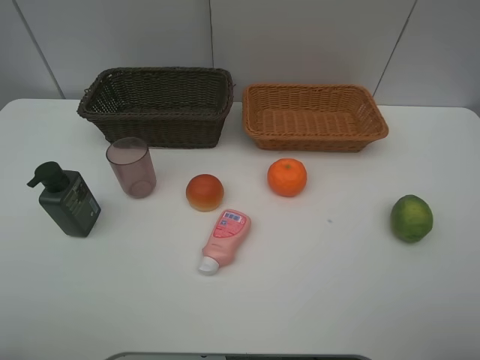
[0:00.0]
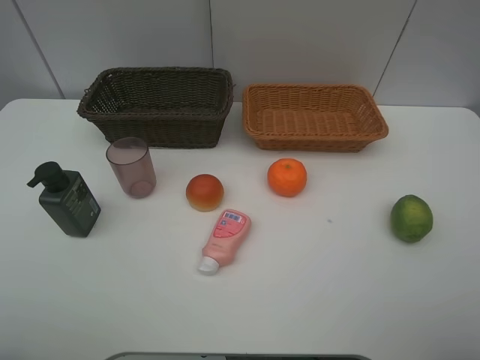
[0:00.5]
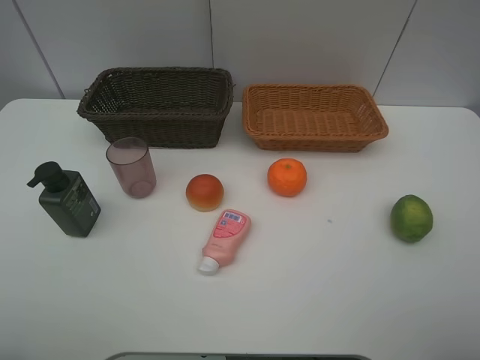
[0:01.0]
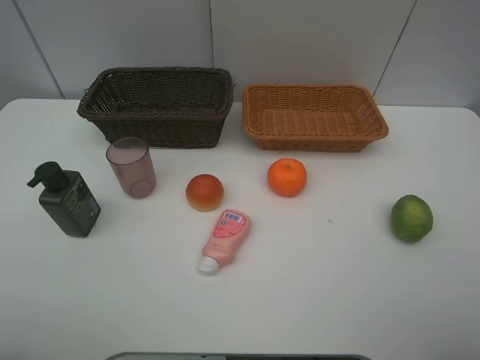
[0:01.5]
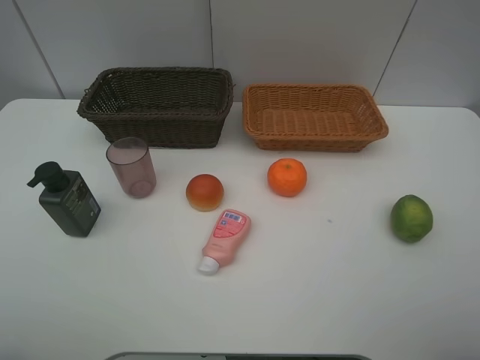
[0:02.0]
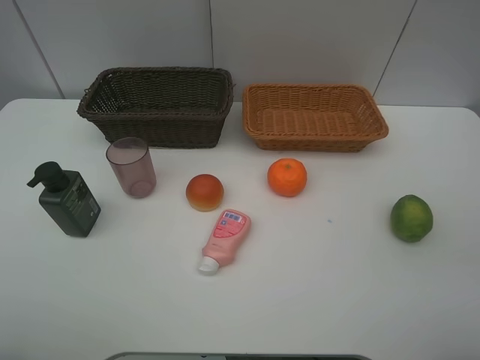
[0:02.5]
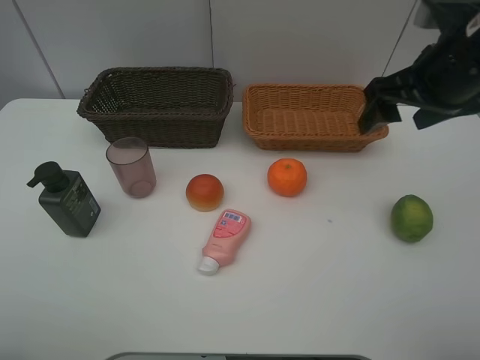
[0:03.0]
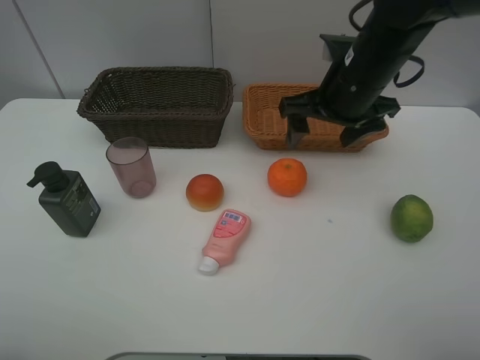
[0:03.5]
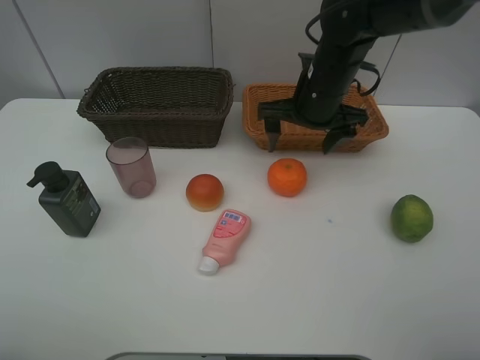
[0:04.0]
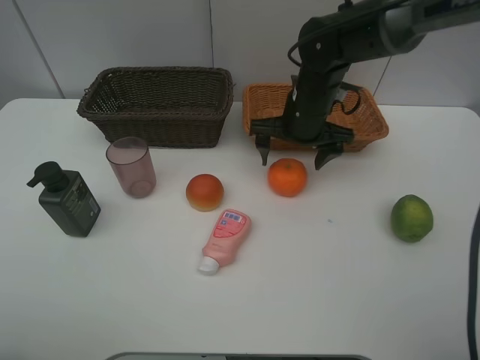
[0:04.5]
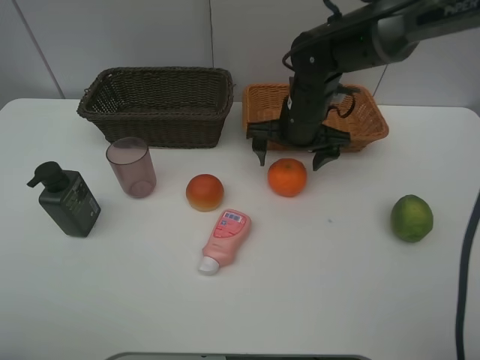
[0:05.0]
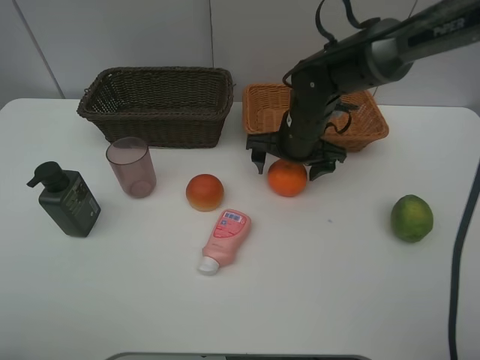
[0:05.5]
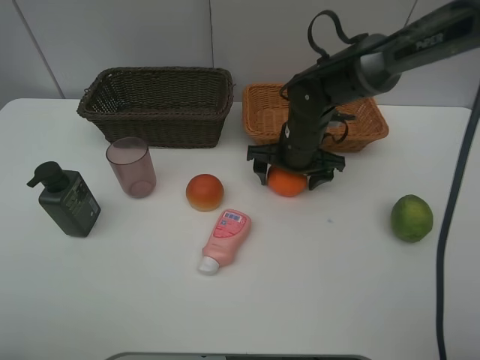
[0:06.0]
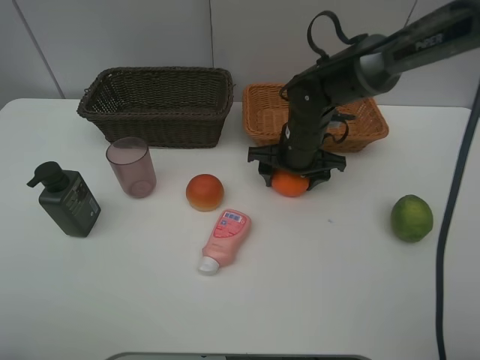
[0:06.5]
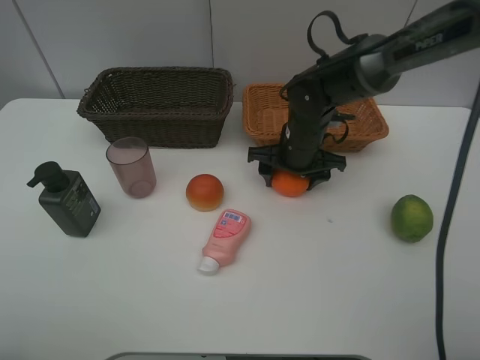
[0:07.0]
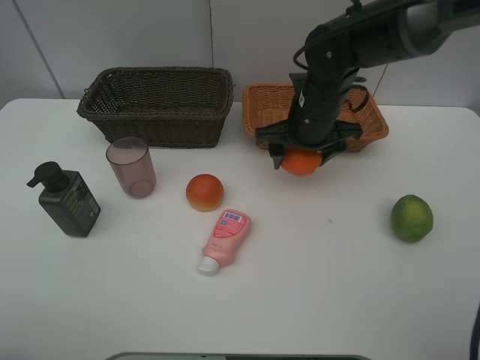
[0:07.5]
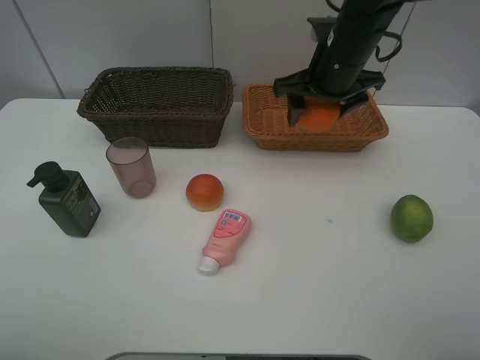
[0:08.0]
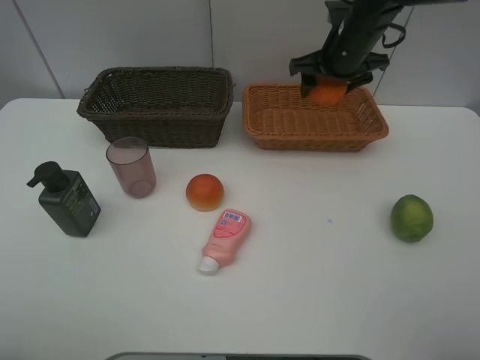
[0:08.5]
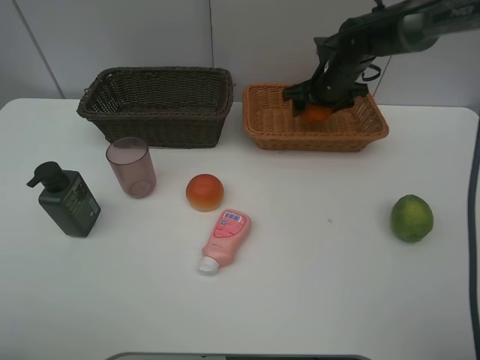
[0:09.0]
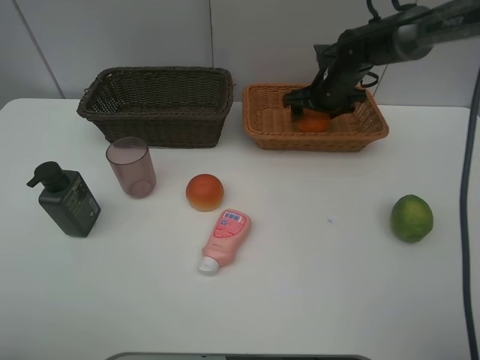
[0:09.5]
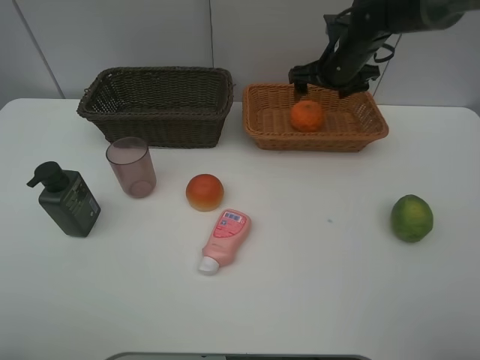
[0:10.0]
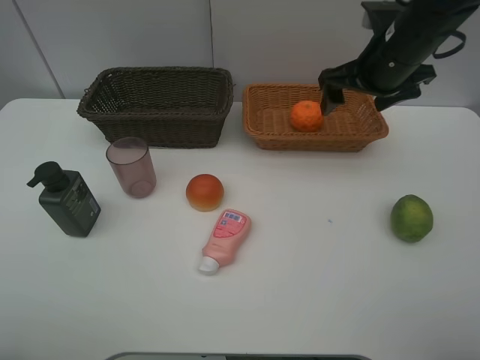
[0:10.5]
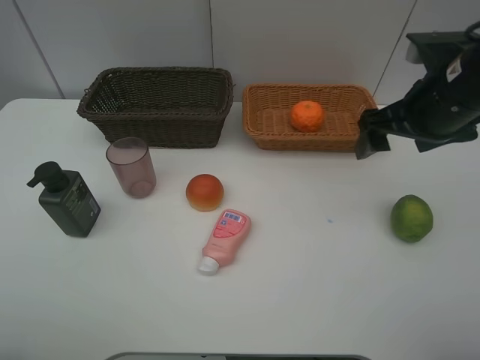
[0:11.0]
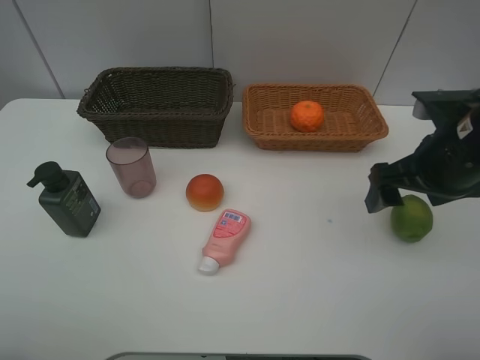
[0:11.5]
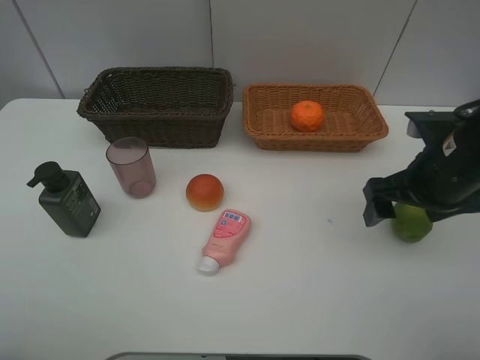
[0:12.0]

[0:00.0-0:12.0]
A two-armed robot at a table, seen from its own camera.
Task of the whole recording: place multiple objects separately in different baskets.
0:02.0 to 0:04.0: The right gripper travels forward and to the left by some 40 cm.
0:04.0 to 0:06.0: The right gripper goes about 10 cm downward.
0:06.0 to 0:08.0: The right gripper heads upward, covering about 15 cm.
0:08.0 to 0:10.0: The right gripper moves forward, about 10 cm, and opens its fingers.
0:10.0 to 0:12.0: The right gripper goes some 25 cm backward.

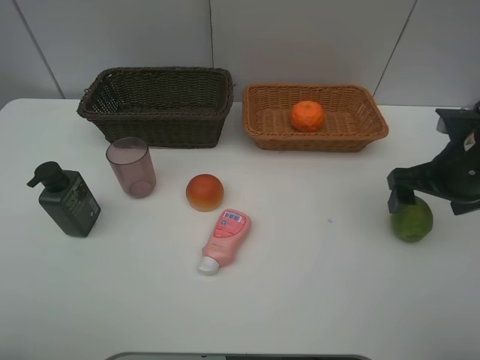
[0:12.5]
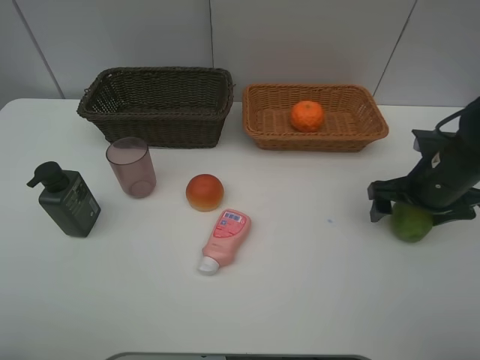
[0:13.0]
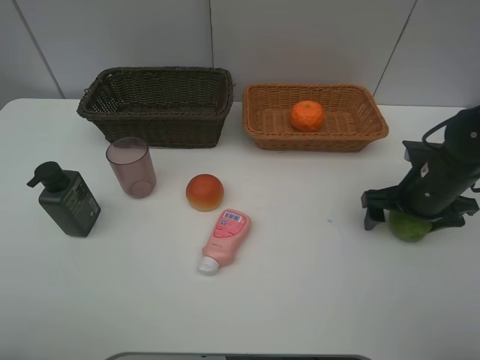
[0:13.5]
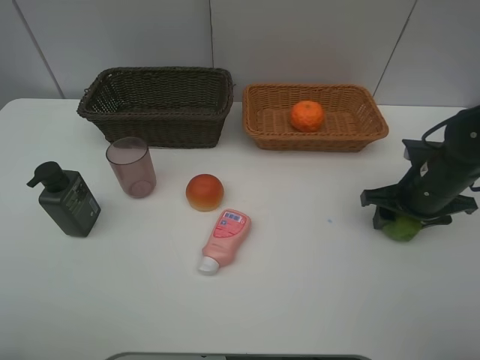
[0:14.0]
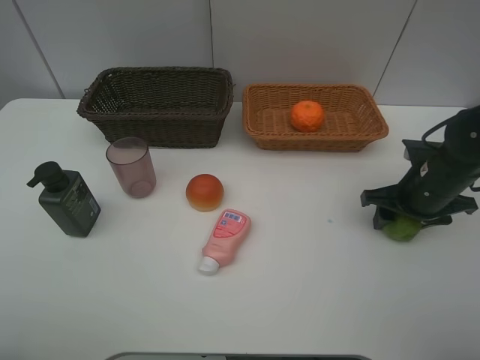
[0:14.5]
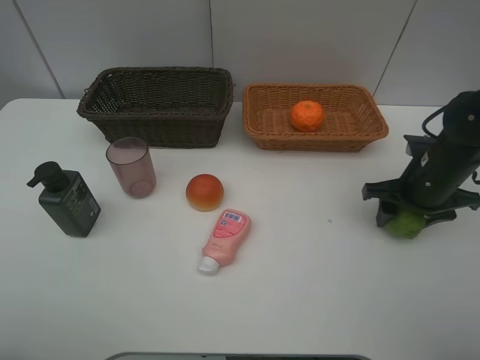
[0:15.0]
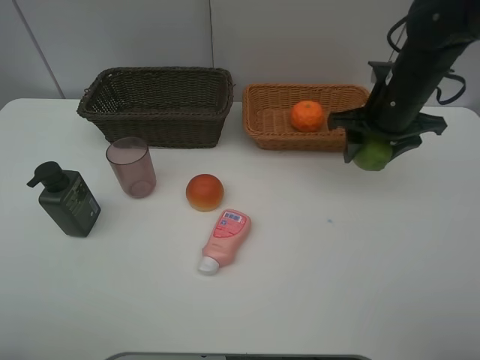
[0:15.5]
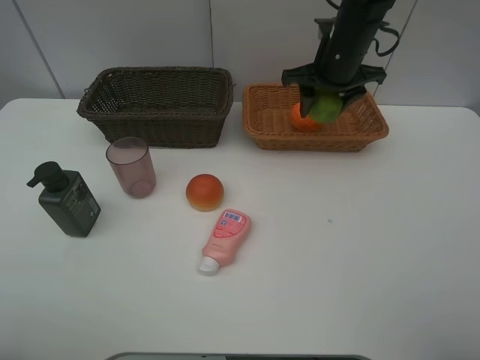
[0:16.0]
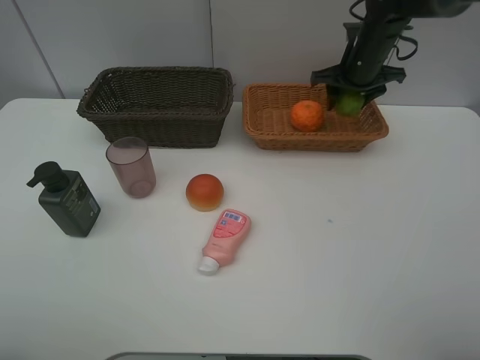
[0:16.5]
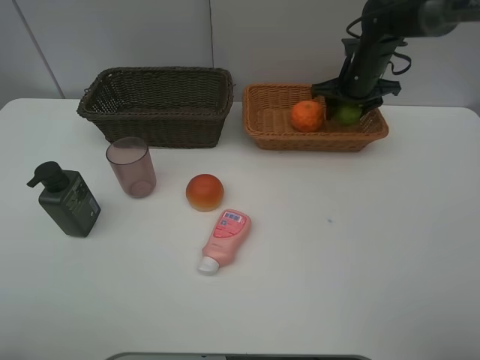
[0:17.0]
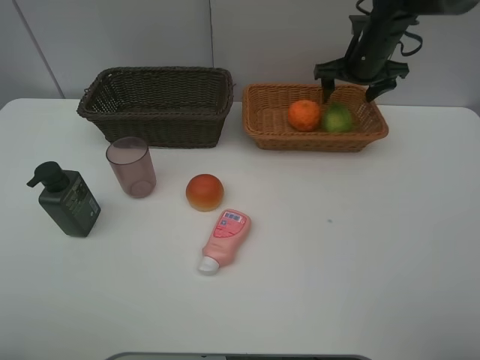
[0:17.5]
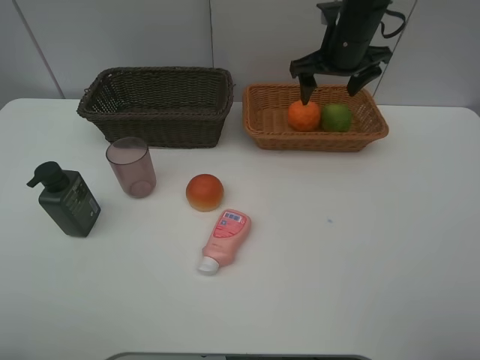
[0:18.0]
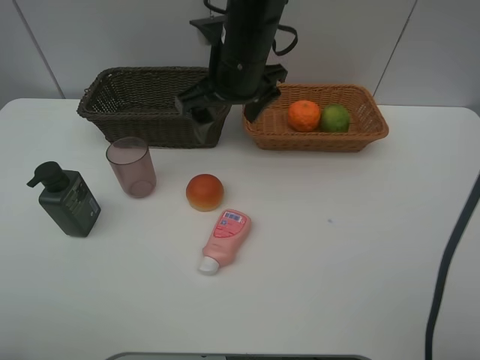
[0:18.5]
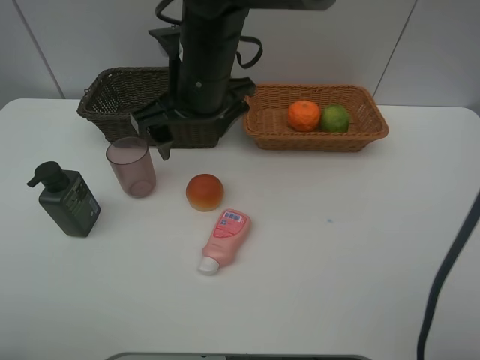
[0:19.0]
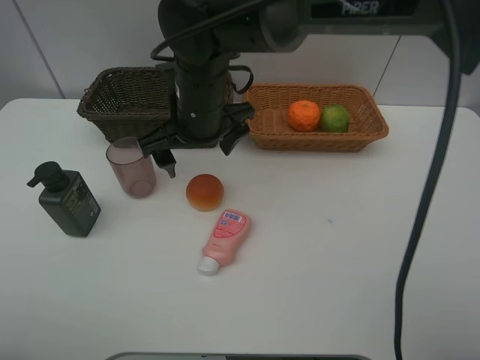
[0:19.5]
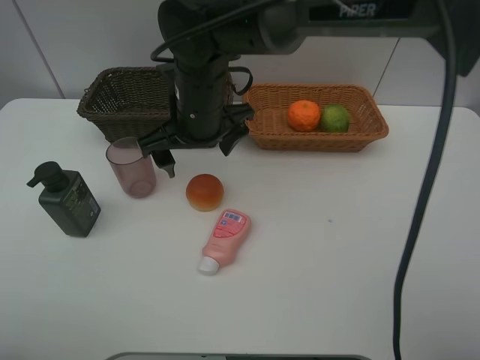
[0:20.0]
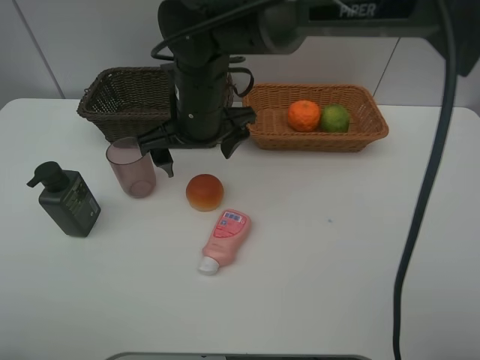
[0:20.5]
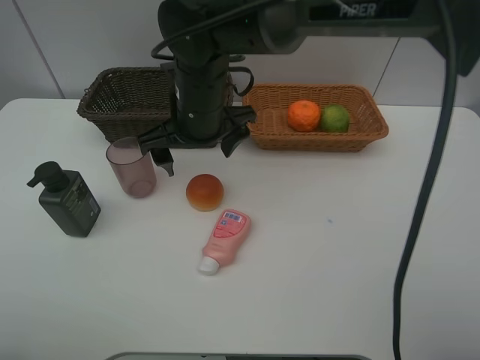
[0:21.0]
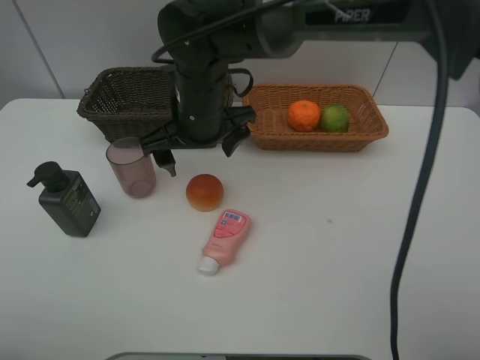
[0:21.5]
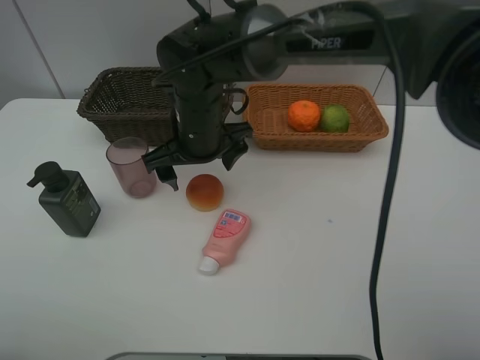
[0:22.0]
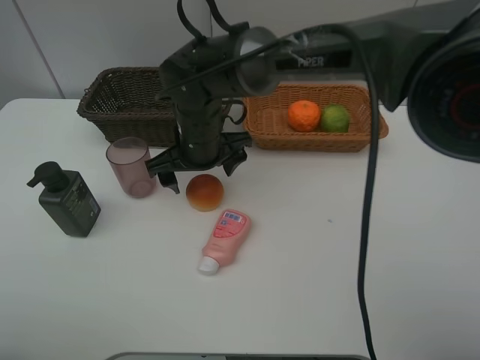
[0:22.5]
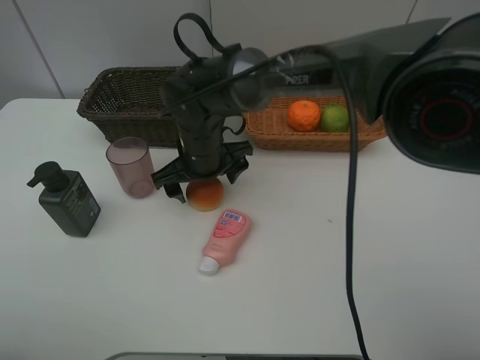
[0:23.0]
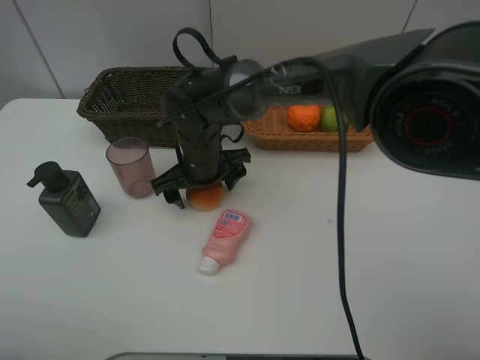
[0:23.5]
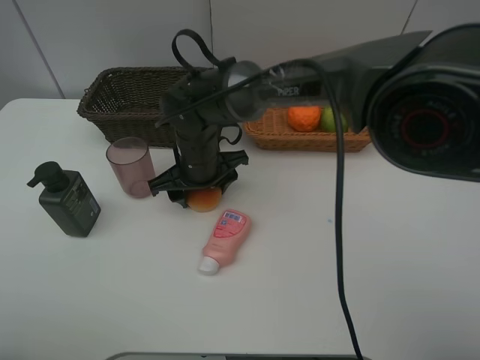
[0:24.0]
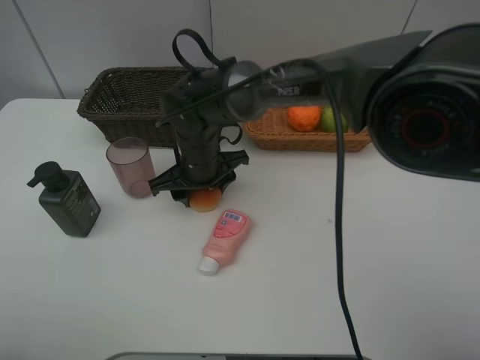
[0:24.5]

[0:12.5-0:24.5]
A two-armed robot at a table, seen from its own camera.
Task of the whole recording: place multiple objects separately in different baskets.
0:12.5 to 0:14.5: The right gripper shifts roughly 5 cm downward, and closes up.
0:14.5 to 0:16.5: The right gripper moves forward, about 20 cm.
0:16.5 to 0:18.5: The right gripper shifts about 25 cm to the left and backward, and opens its fingers.
0:18.5 to 0:20.5: The right gripper ends up approximately 5 cm from where it was.
0:20.5 to 0:22.5: The right gripper heads downward, covering roughly 5 cm.
0:22.5 to 0:24.5: The right gripper closes up.

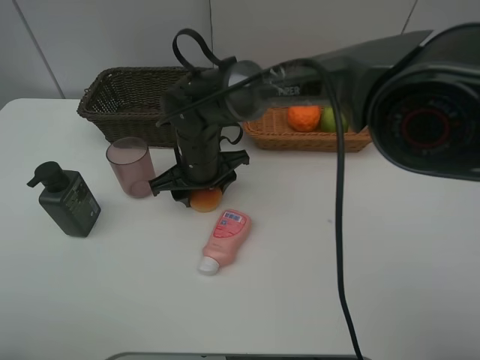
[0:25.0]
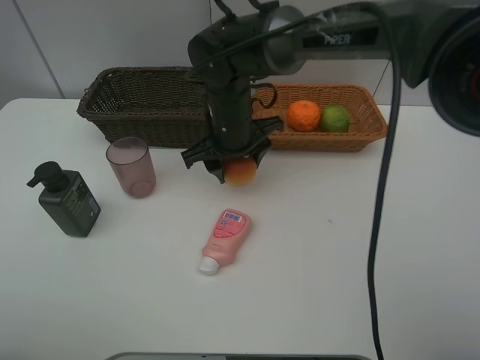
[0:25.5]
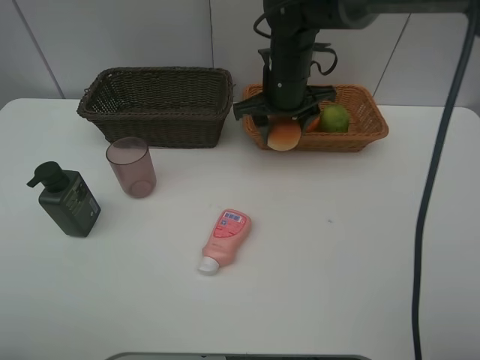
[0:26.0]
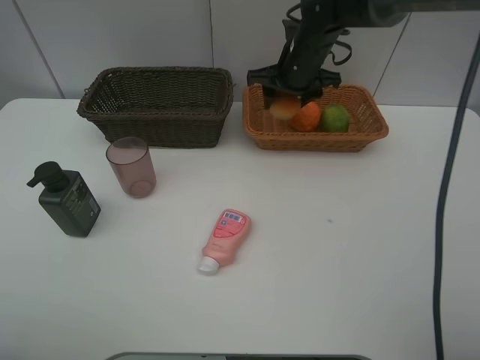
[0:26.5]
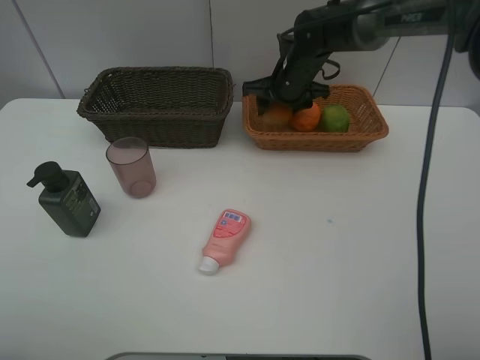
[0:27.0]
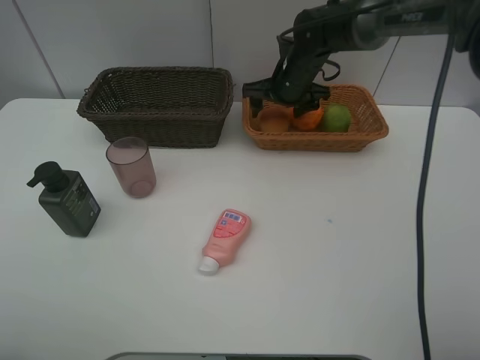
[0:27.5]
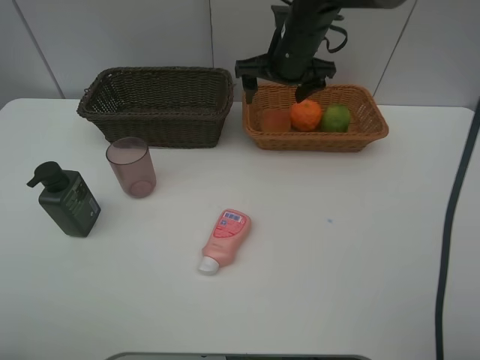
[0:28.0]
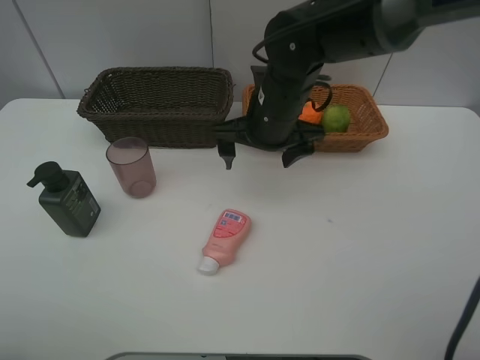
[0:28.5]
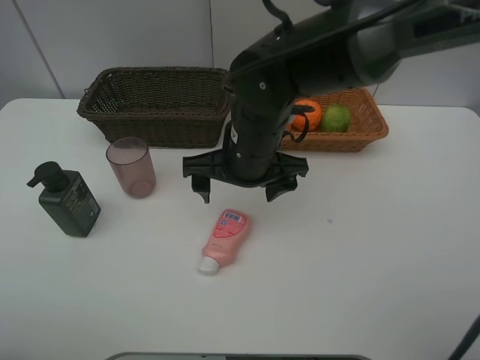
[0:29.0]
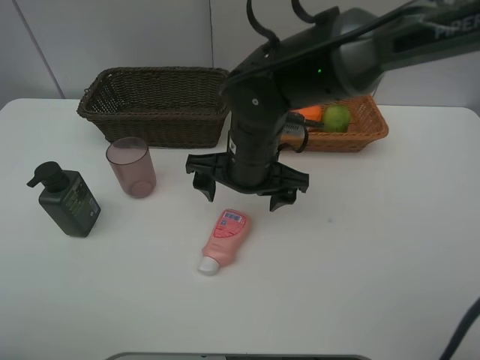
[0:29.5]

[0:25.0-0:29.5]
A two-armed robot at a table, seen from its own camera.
Task of the whole recording: place multiple objects separately in different baskets.
0:25.0 to 0:27.0: The right gripper heads to the right and forward, covering approximately 20 cm.
0:27.0 to 0:29.5: The right gripper travels backward and to the left by about 20 cm, and opens.
